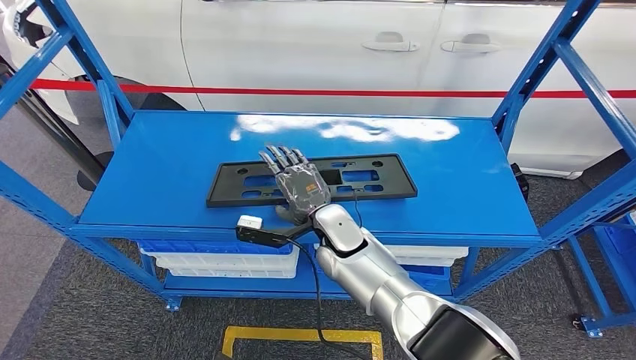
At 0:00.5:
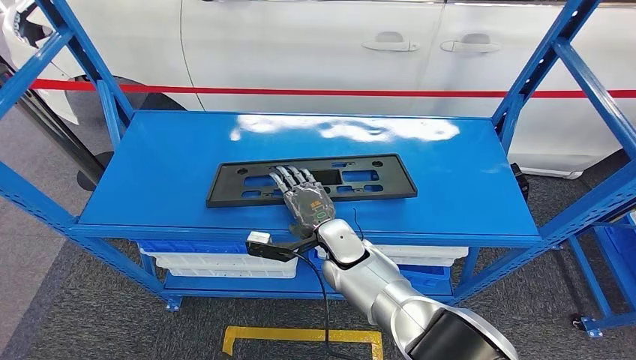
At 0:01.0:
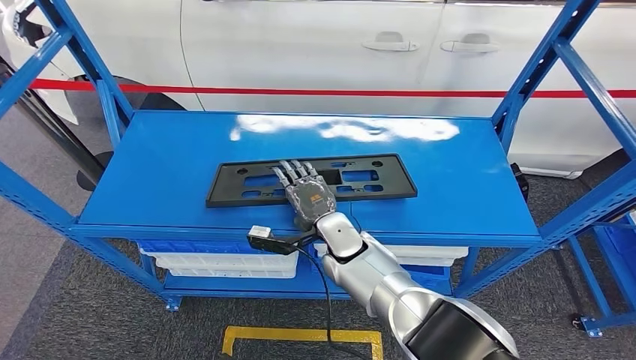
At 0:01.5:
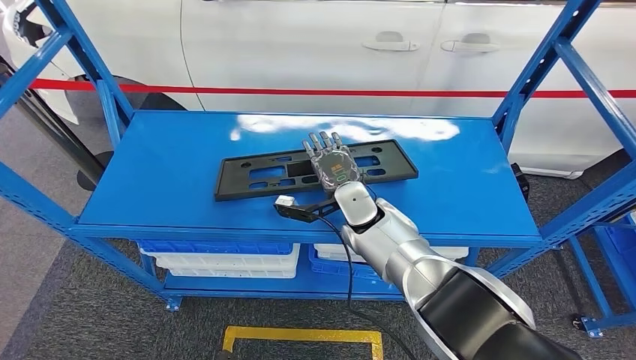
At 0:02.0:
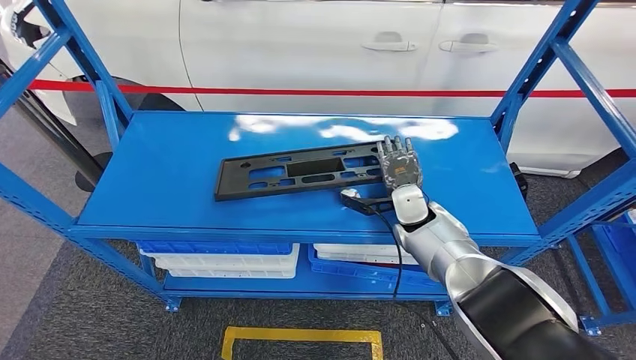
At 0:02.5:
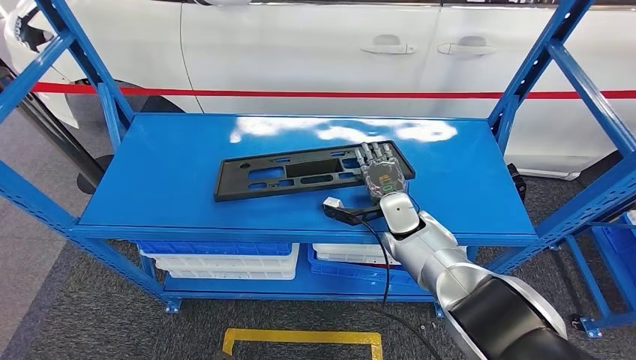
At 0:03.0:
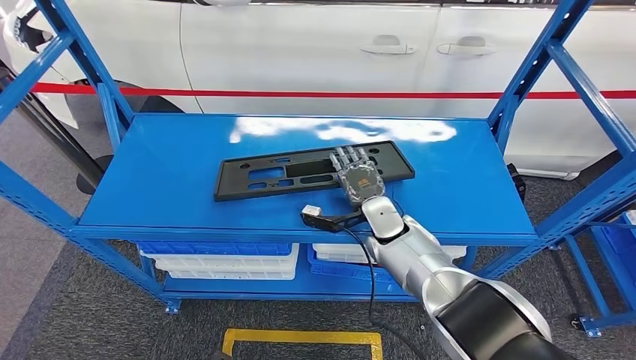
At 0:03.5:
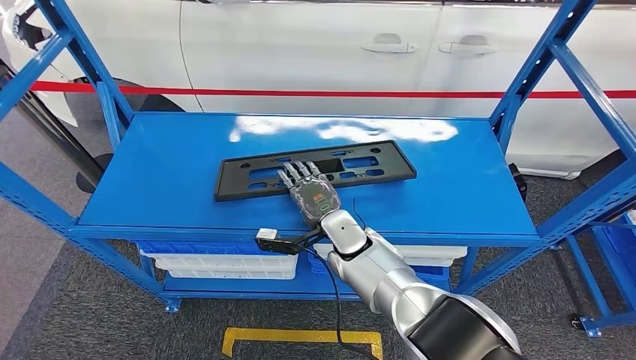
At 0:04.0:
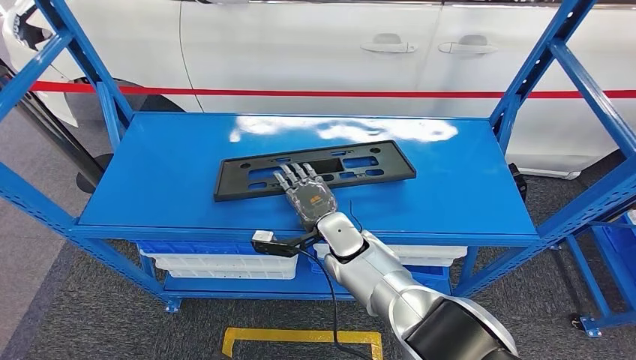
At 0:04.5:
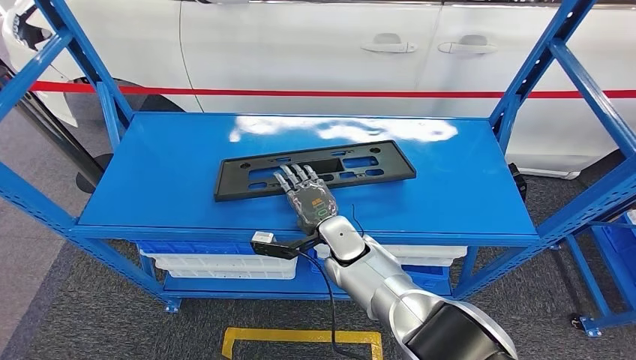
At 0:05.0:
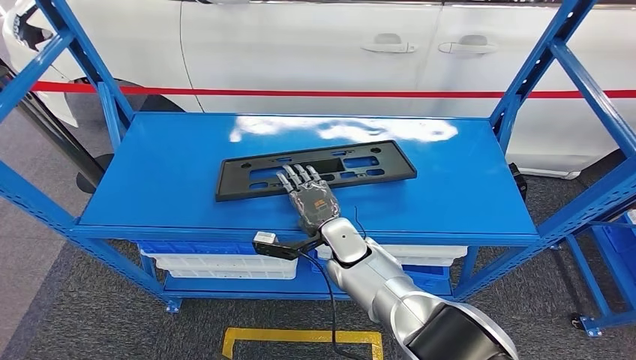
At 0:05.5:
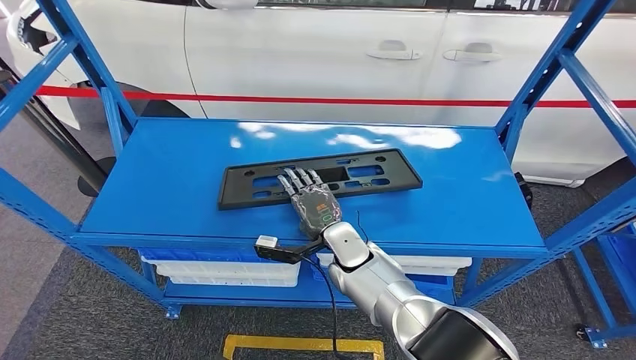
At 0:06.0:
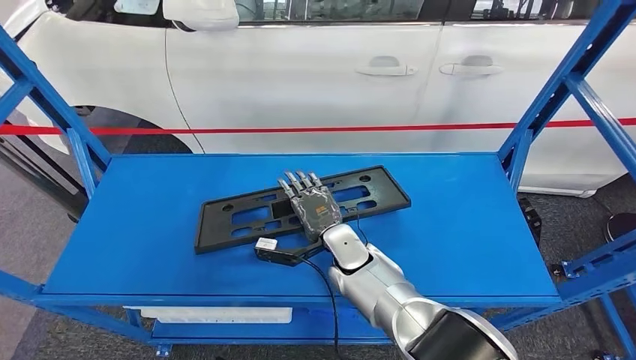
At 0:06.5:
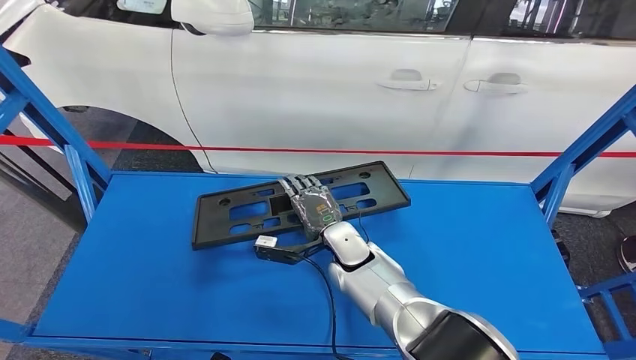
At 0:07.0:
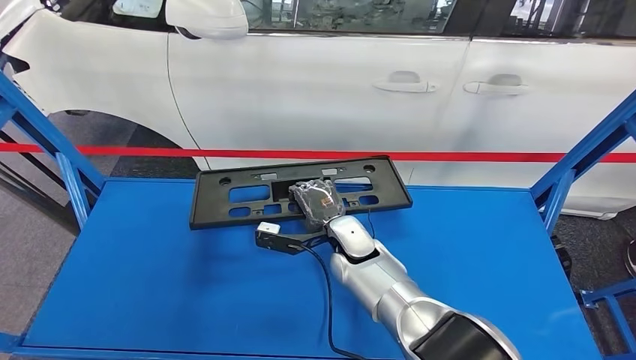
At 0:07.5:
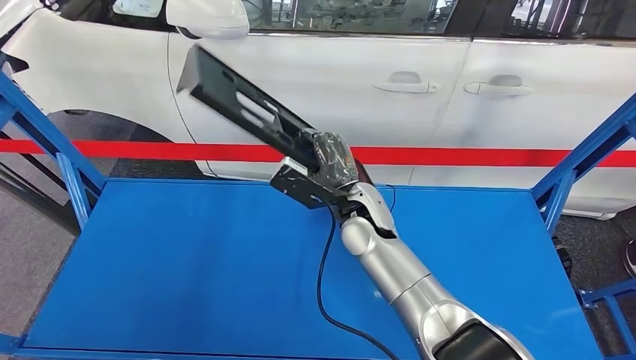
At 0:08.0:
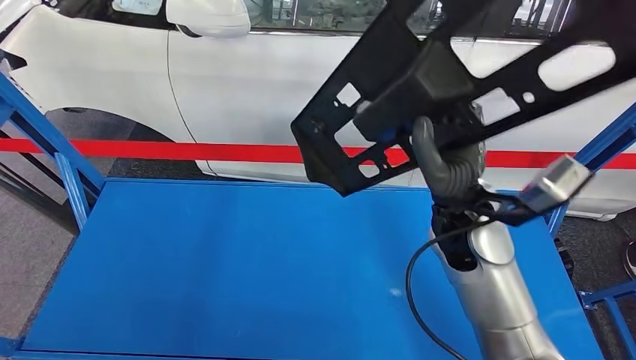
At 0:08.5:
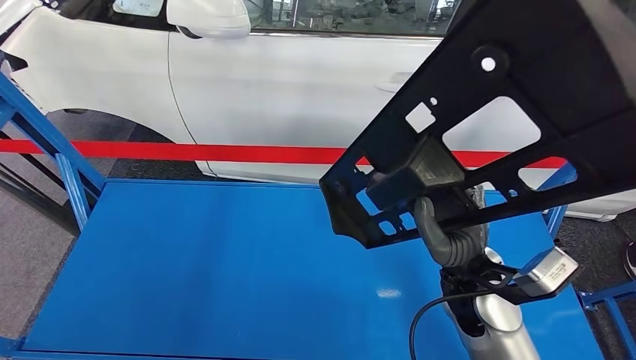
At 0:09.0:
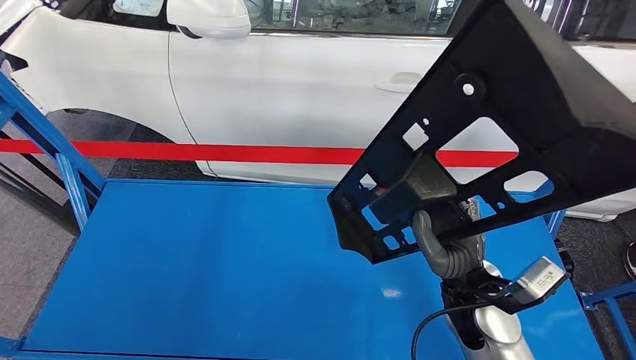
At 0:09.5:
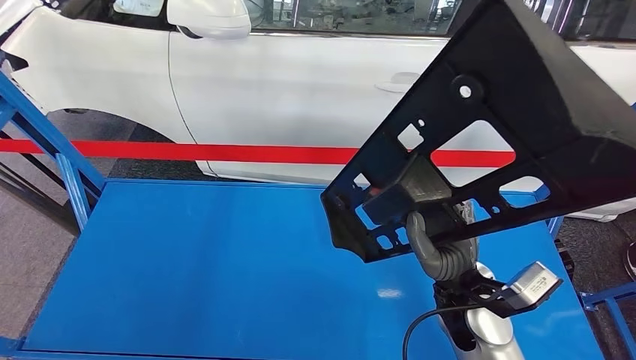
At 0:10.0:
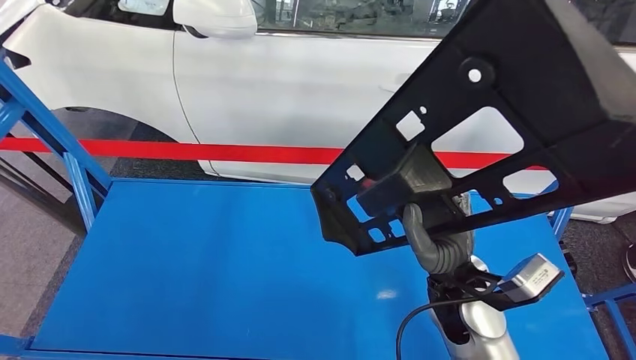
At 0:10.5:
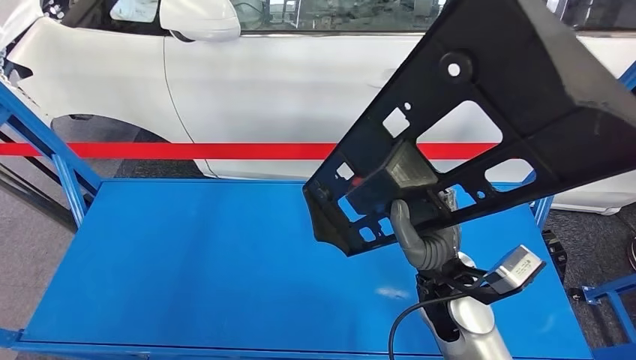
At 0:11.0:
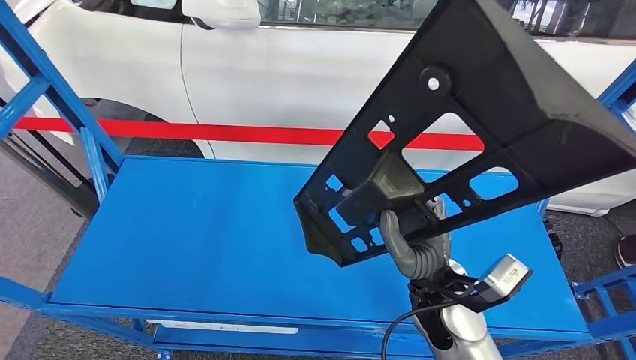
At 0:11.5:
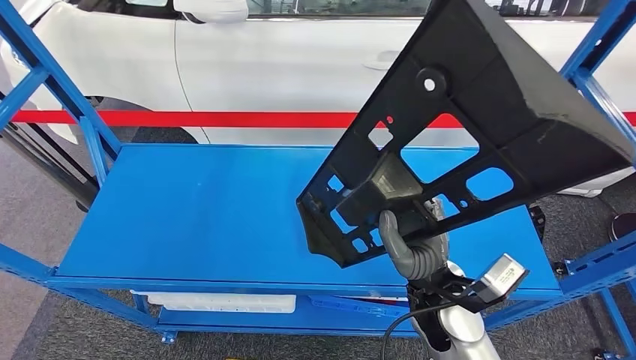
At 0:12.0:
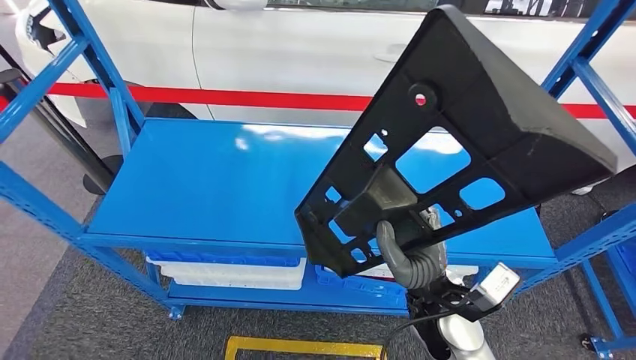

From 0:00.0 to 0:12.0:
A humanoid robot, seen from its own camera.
Step, from 0:00.0 to 0:09.5: Pick up the large material from the shelf.
From 0:00.0 to 0:02.0: The right hand goes some 15 cm to the right.
From 0:02.0 to 0:04.0: The right hand is displaced to the left by roughly 15 cm.

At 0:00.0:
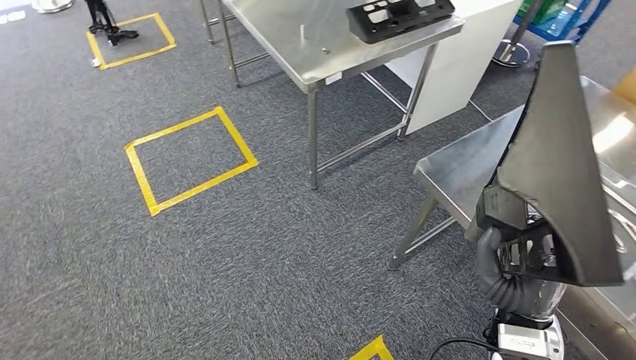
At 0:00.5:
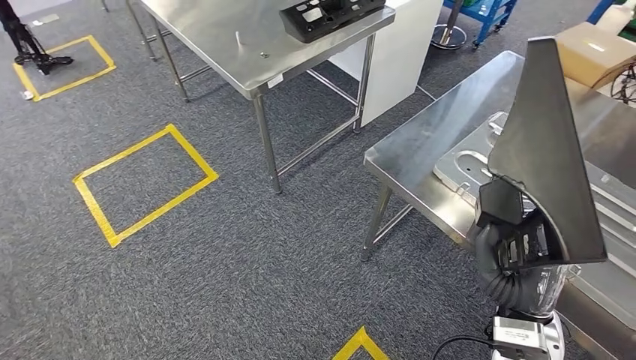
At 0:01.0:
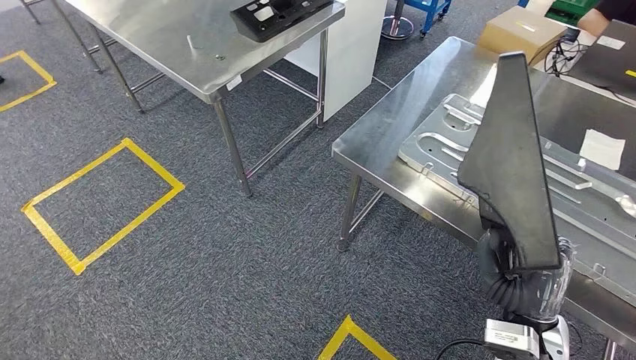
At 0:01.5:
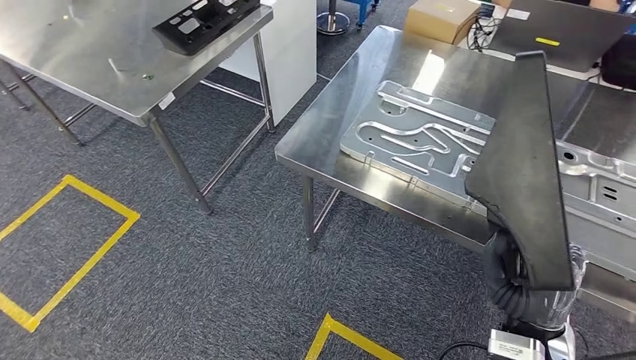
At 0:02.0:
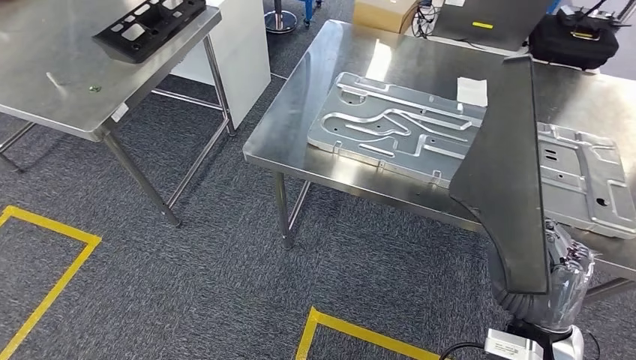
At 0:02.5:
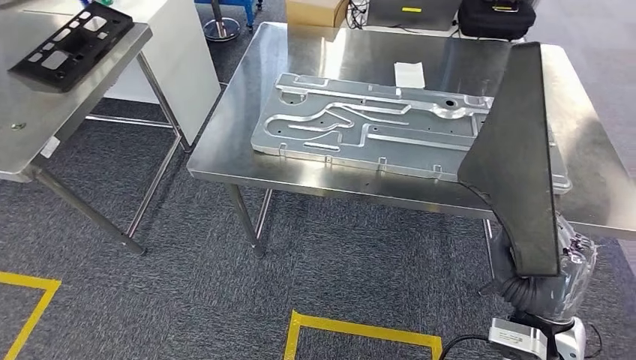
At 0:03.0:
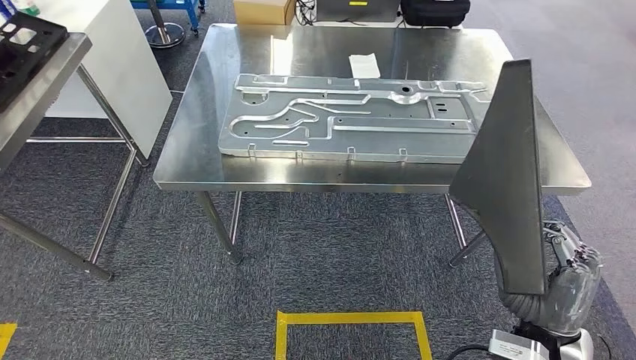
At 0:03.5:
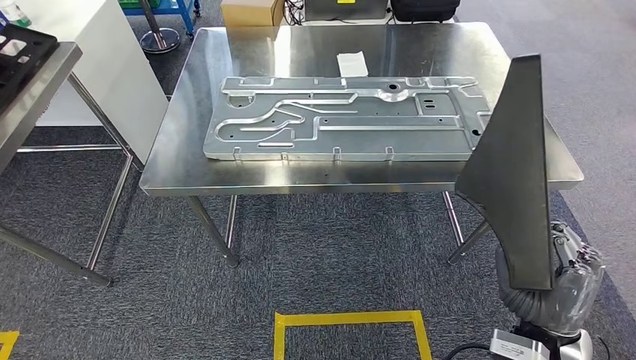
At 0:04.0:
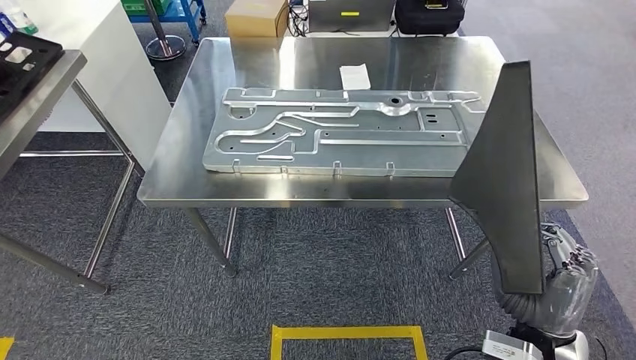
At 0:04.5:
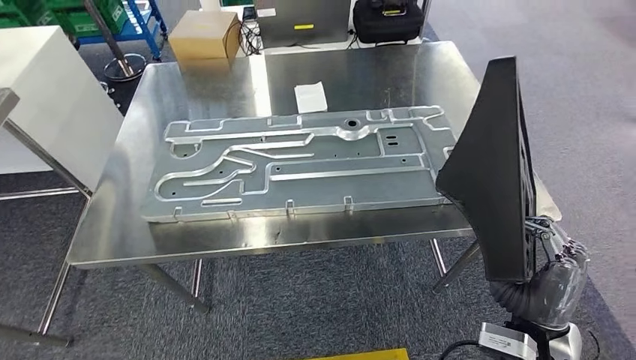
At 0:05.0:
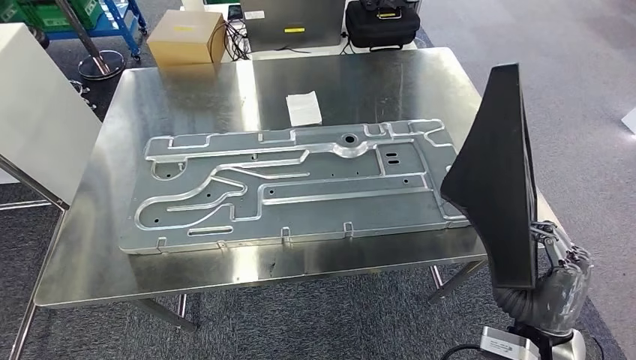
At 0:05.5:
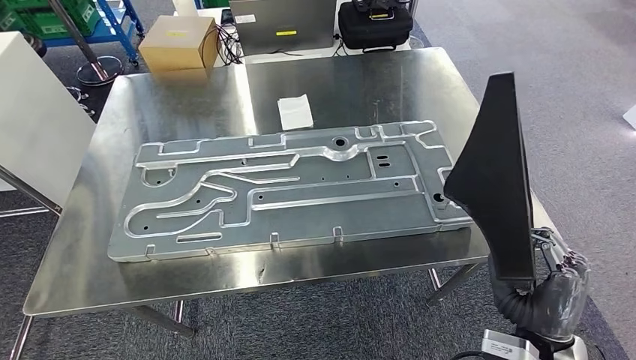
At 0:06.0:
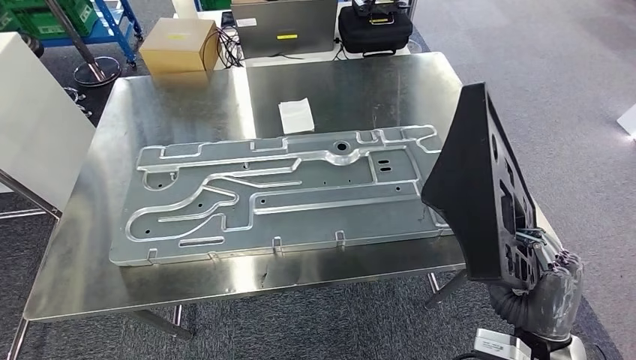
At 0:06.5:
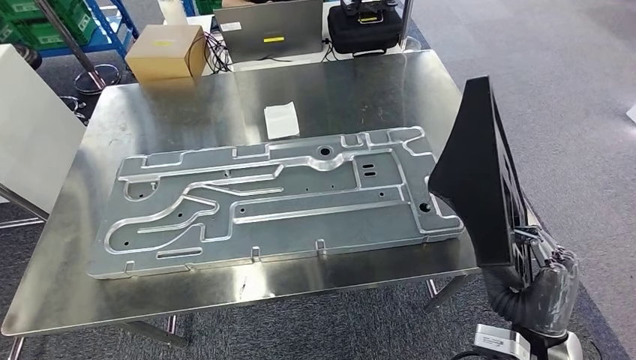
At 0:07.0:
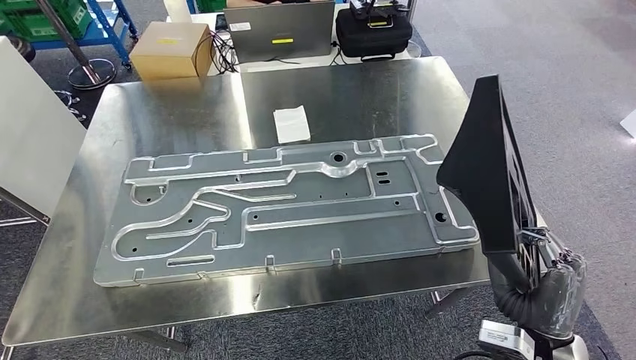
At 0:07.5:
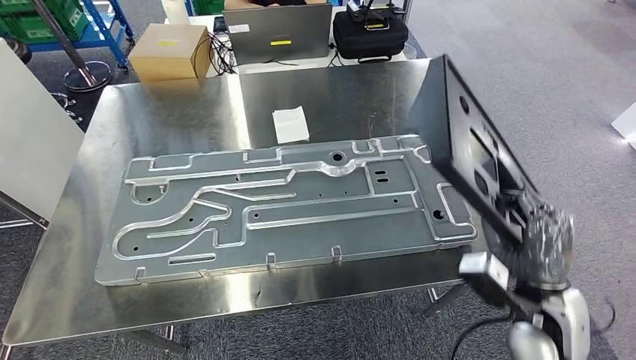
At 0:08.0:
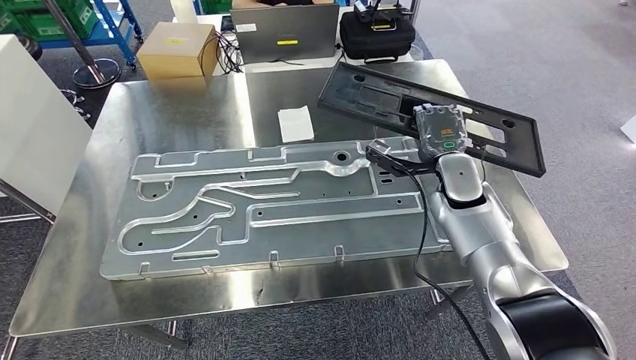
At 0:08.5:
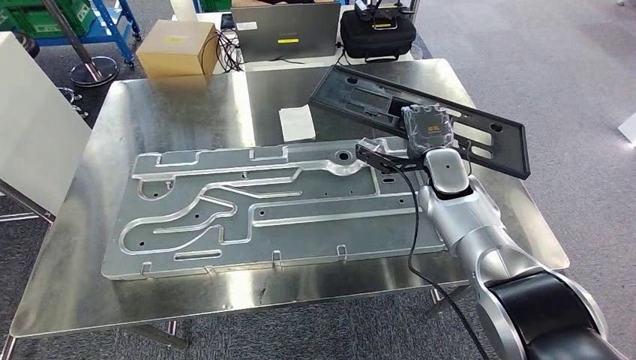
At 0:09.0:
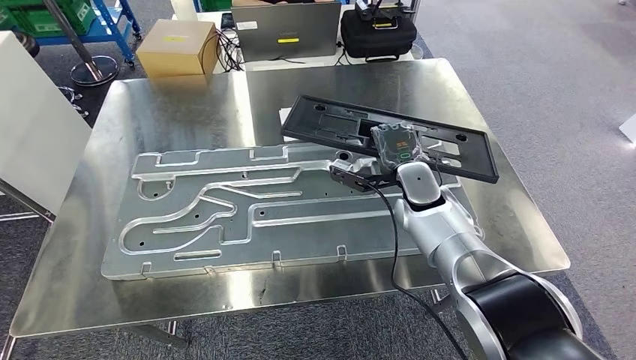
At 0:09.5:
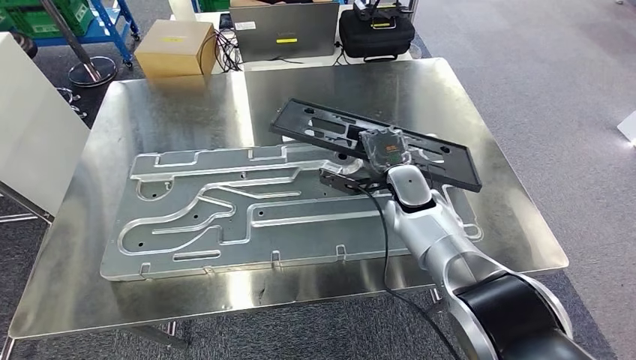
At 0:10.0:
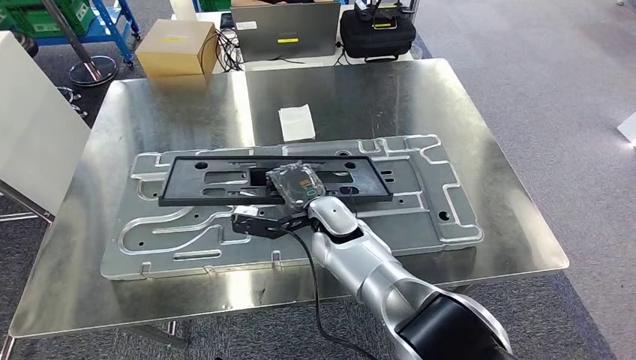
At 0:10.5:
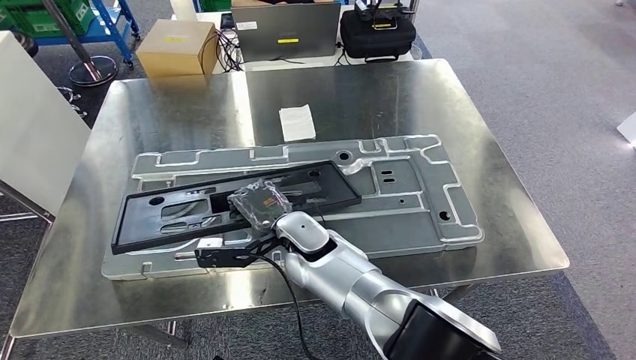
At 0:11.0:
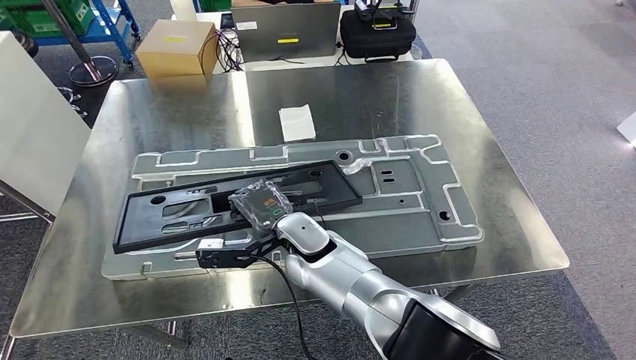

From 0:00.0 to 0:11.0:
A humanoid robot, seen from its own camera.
Step, from 0:00.0 to 0:03.0: Move the large material to the workbench.
